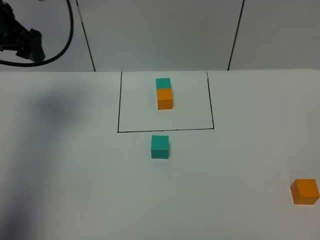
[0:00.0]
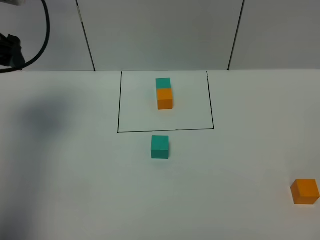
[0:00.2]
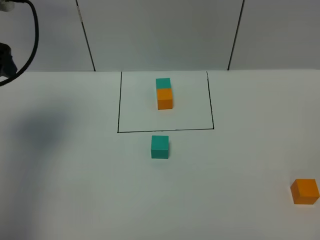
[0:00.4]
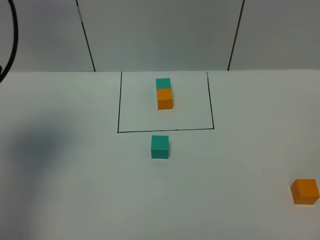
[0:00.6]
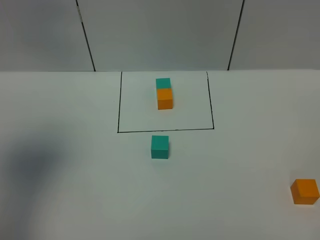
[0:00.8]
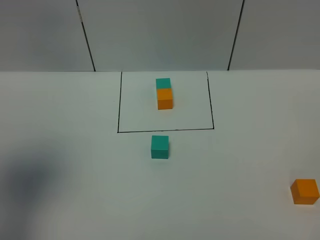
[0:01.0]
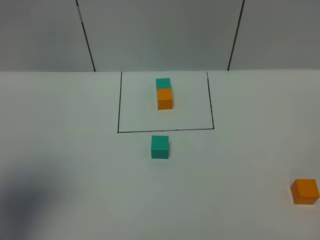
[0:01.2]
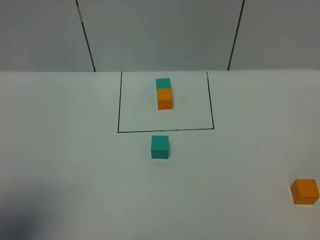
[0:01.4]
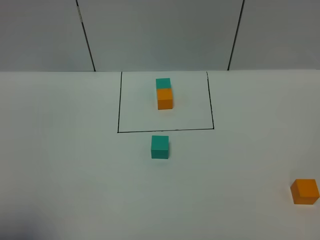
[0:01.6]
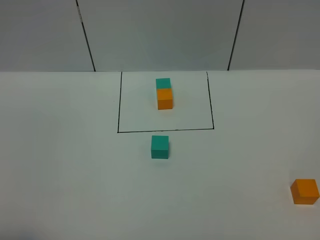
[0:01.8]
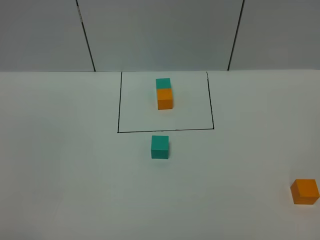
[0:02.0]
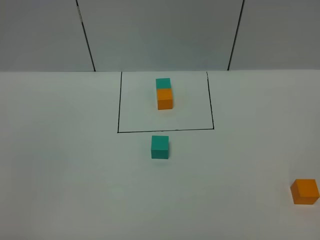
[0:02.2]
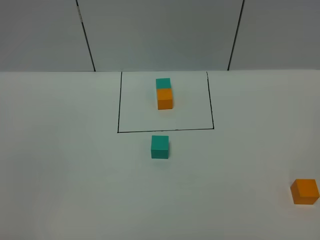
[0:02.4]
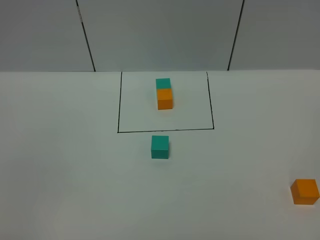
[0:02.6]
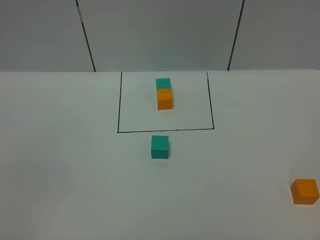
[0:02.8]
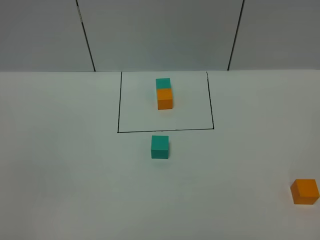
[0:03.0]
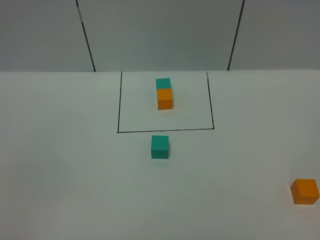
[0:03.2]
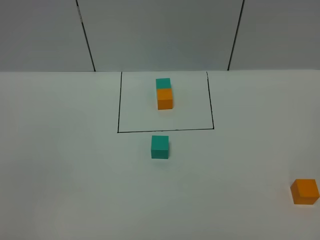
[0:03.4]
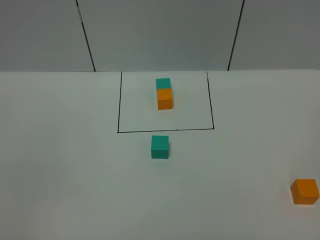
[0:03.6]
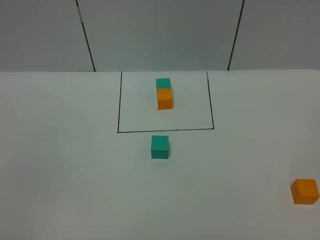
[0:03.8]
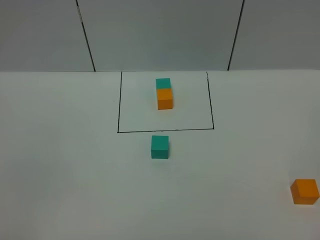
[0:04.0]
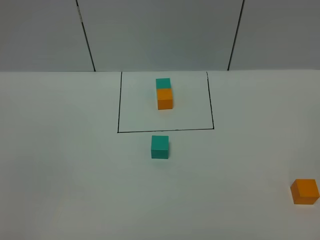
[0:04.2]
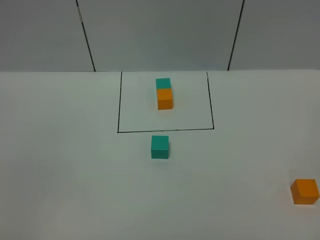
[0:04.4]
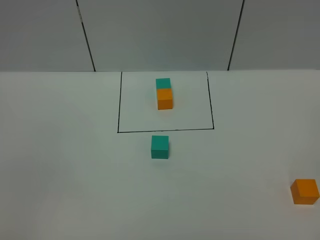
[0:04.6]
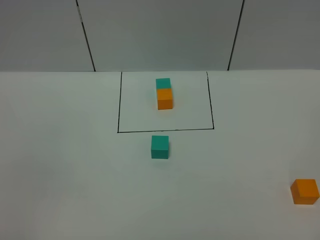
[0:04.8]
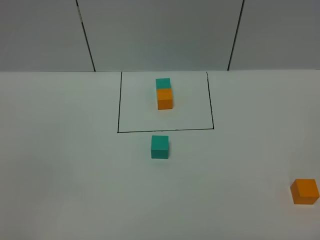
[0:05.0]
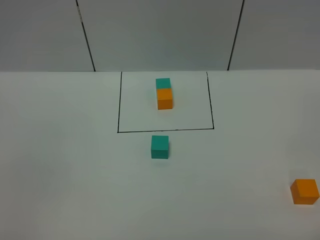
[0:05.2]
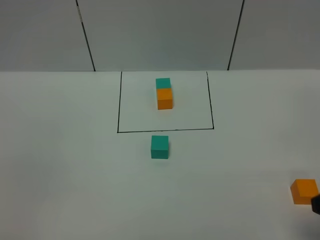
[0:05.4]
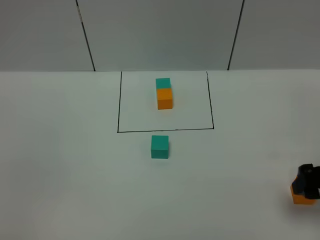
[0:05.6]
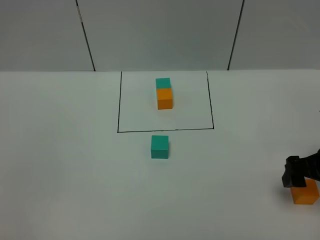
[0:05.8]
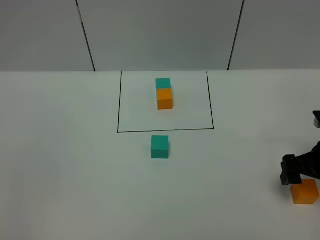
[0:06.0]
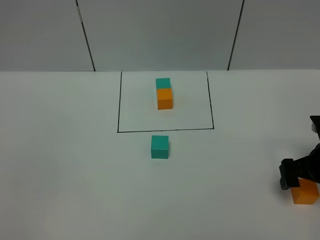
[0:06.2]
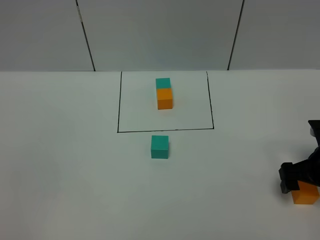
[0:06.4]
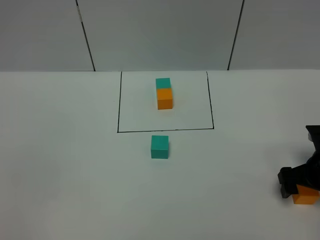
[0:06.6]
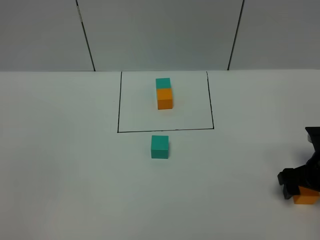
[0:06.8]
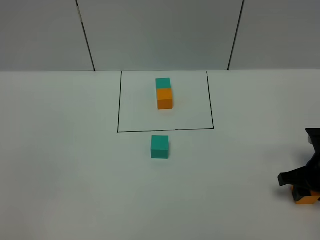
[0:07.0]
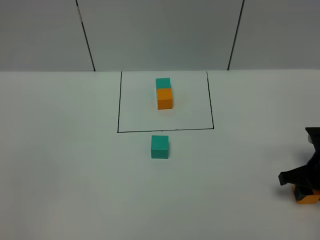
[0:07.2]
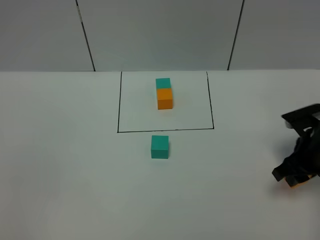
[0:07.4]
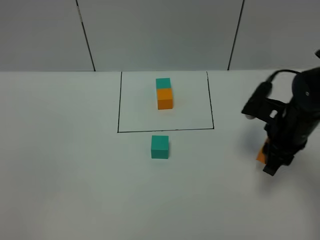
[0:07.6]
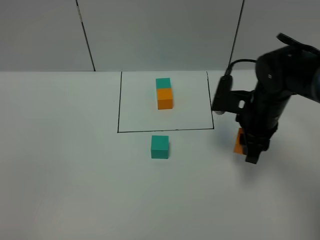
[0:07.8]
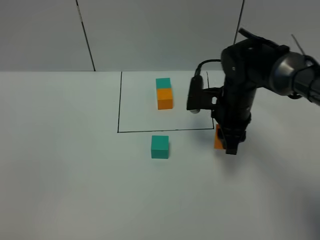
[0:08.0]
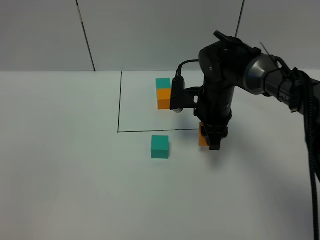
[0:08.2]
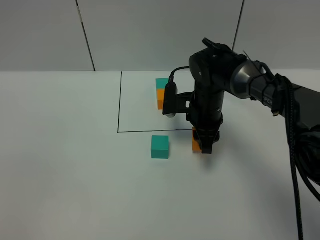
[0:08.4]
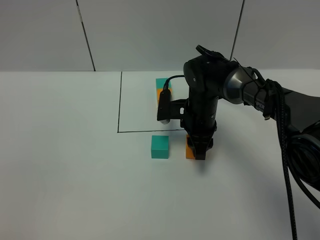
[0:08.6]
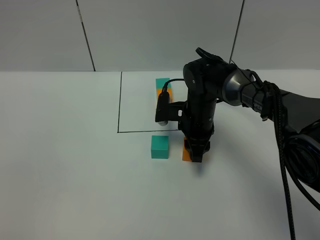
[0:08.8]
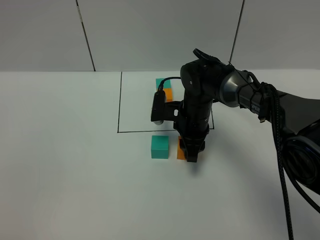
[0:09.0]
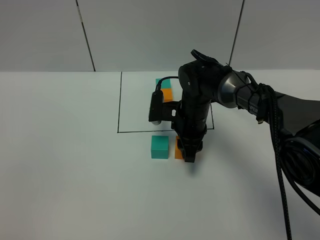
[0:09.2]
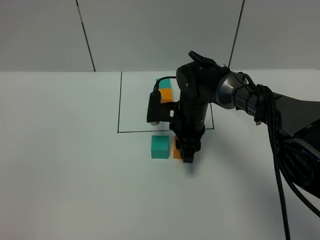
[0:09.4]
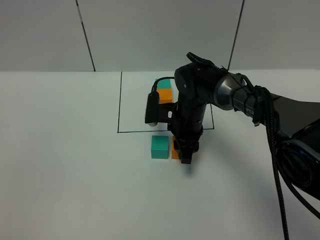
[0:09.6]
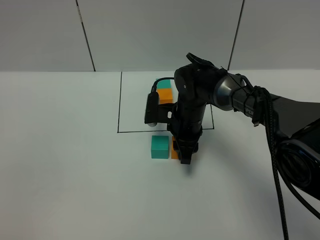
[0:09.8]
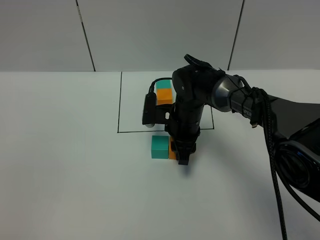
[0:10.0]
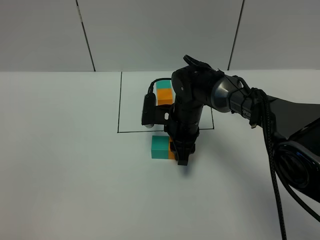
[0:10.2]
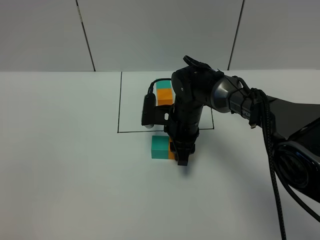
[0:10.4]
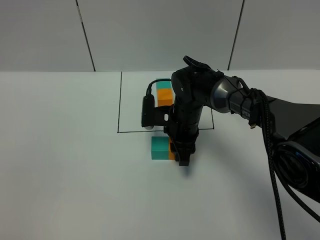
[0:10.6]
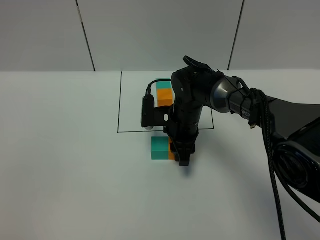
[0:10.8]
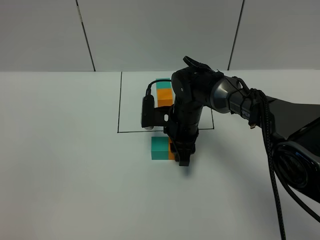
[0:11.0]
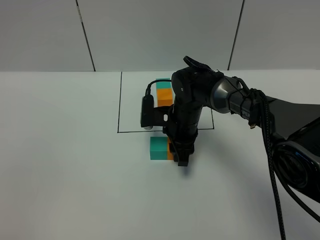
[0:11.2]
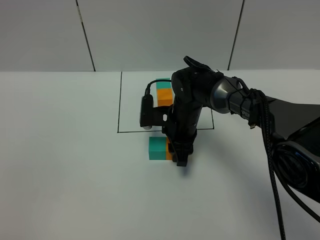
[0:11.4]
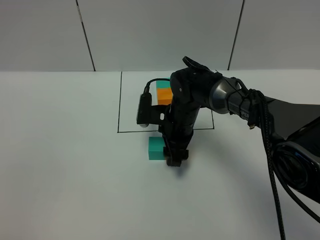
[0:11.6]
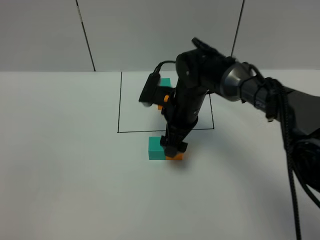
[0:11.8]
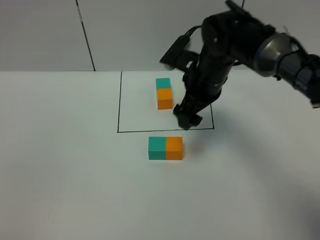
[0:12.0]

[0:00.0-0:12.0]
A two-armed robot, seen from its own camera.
Task of the whole recording: According to the building block template in front, assemble the scattered blocks together.
Step, 0:00.0 to 0:11.8: Put the orange cube on the right of the green cube.
0:00.0 to 0:01.6: The left gripper is displaced backward by some 35 cm.
0:01.6 to 0:03.0: The left gripper goes about 10 cm backward and downward.
0:03.0 to 0:04.4: Both grippers stay about where they are.
0:04.4 to 0:06.0: The right gripper shifts roughly 30 cm forward.
0:06.0 to 0:07.6: The right gripper travels to the left and forward by approximately 10 cm, and closes.
0:07.6 to 0:09.0: The right gripper heads to the left, forward and downward, covering about 20 cm.
0:09.0 to 0:10.4: The grippers move only a little.
0:10.4 to 0:12.0: The right gripper shifts roughly 15 cm upward, and opens.

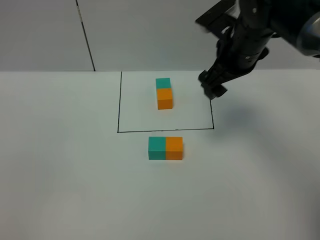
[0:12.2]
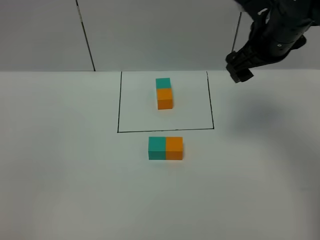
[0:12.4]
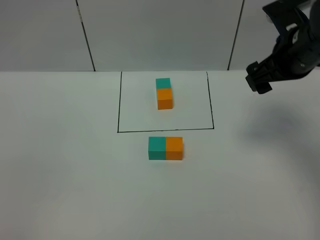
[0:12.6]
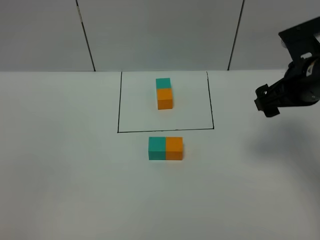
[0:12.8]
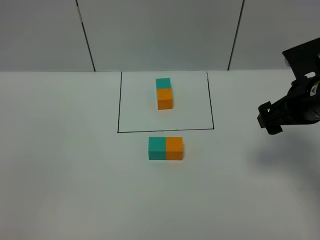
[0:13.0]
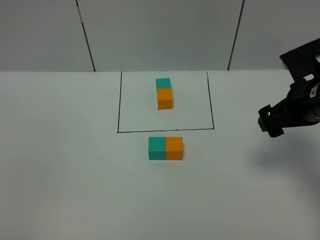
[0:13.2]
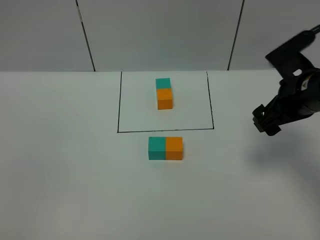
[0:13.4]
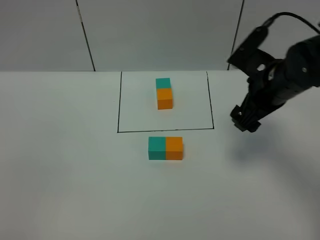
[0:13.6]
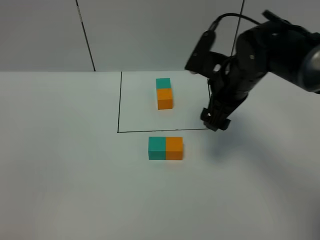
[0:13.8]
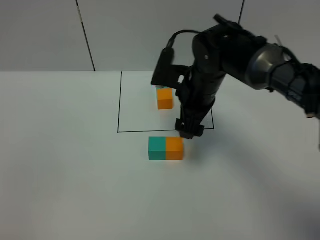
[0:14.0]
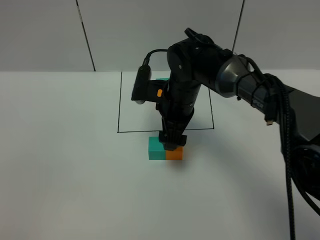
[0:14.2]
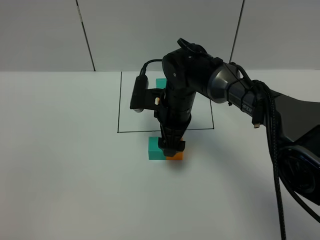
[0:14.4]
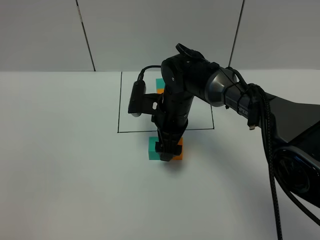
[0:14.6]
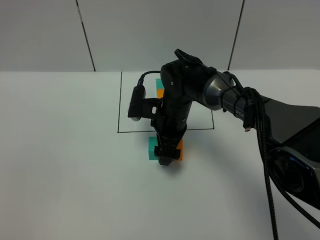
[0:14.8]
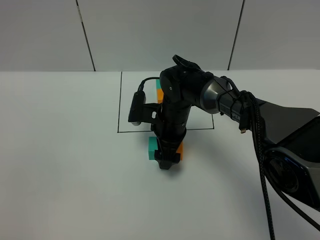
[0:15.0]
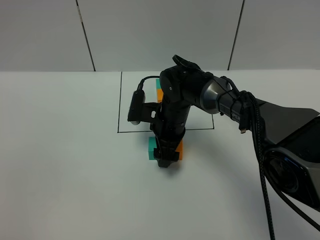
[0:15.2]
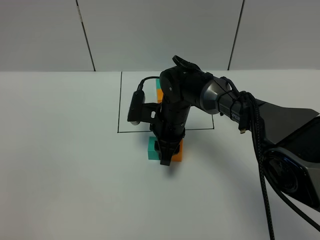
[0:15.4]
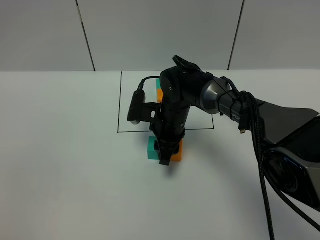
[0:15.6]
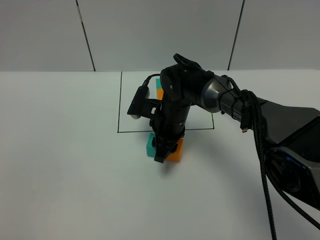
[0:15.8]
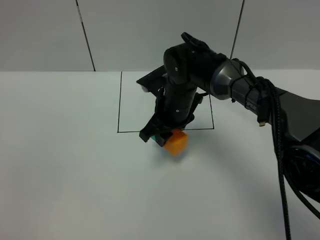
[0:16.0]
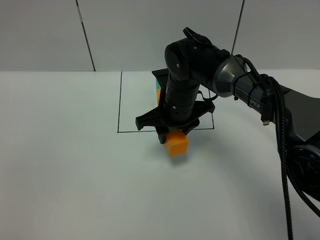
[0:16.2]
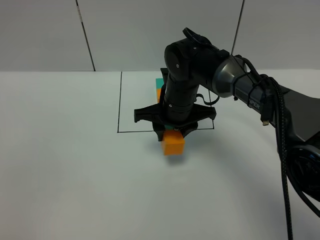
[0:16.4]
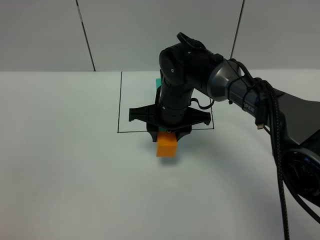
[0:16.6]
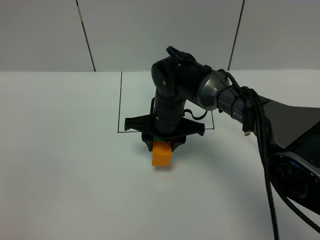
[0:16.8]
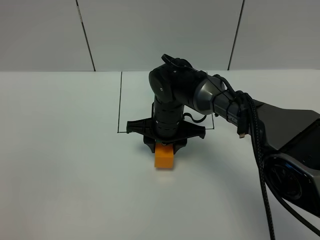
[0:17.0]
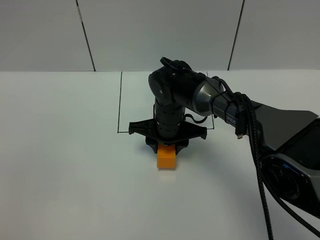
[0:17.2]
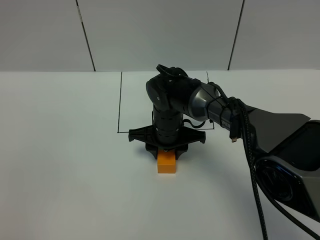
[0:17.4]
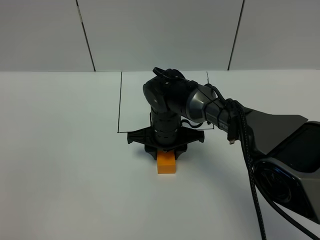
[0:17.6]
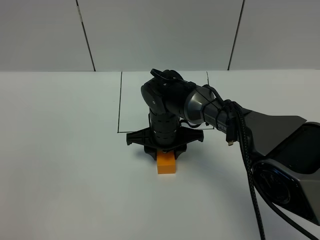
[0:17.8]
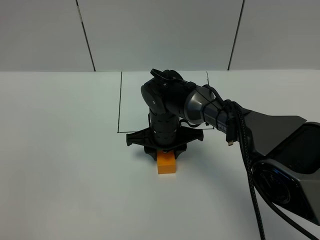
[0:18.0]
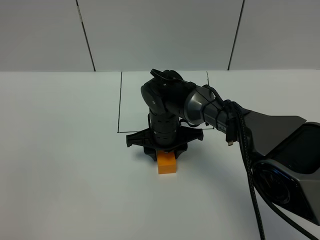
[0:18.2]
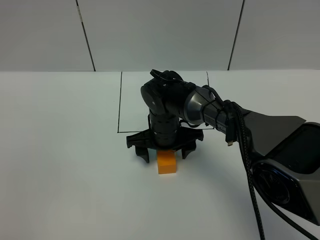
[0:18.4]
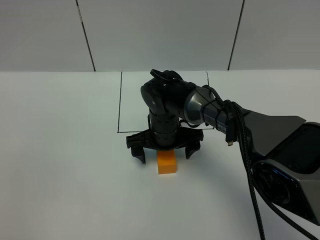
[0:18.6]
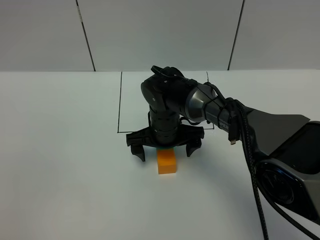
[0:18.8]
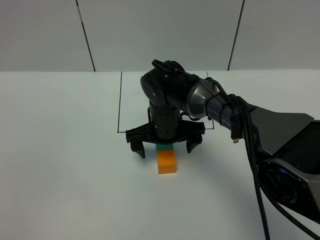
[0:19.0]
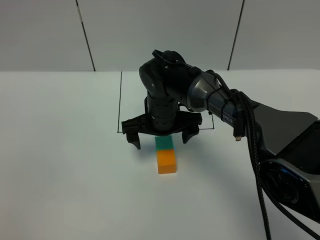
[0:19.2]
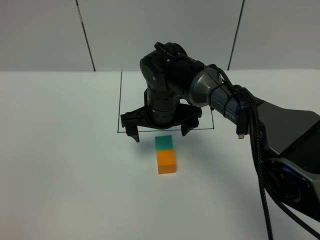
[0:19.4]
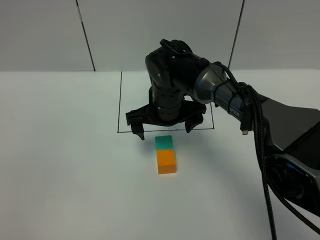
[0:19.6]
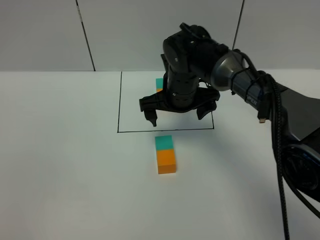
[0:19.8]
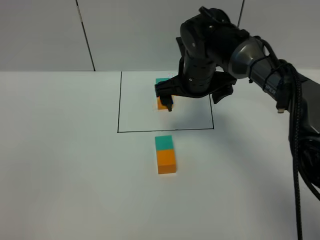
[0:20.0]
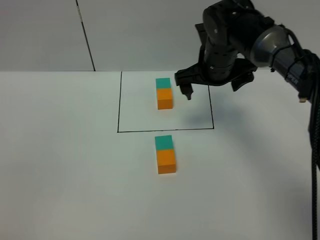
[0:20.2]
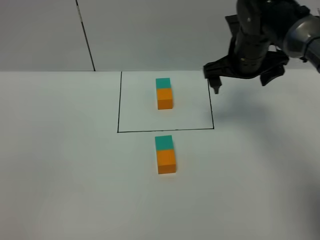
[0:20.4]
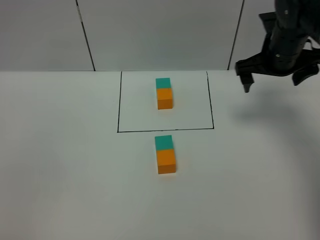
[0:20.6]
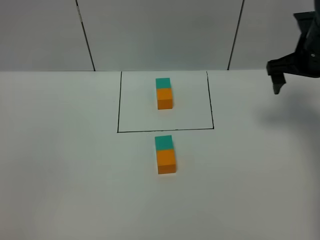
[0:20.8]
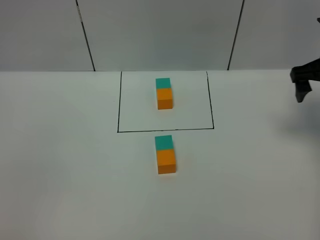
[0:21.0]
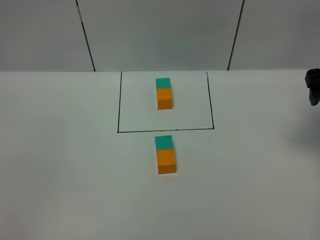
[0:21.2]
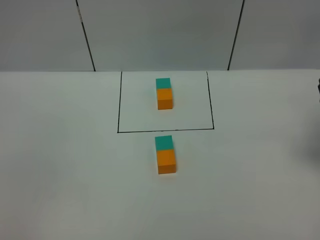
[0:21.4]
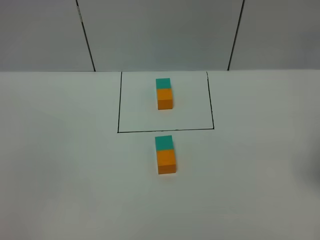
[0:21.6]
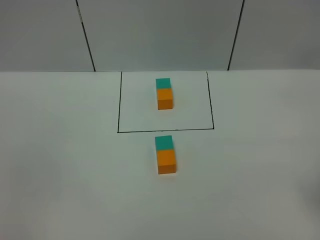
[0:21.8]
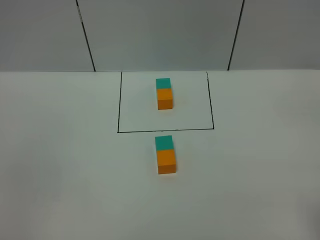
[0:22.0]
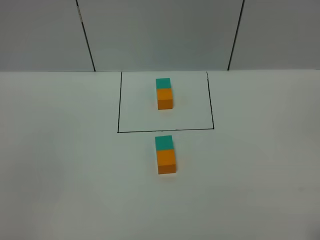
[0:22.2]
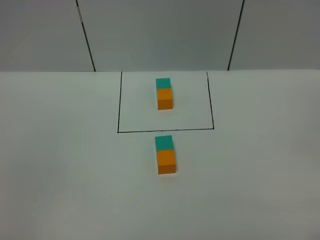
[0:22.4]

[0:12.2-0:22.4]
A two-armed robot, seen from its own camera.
Task of the whole recording: According to the building block template in front, assemble the scattered blocks together.
Step, 0:12.2 to 0:19.2: Adjust the pose of the building blocks.
0:12.2 to 0:13.6: The right gripper moves backward, some 5 cm.
0:13.6 to 0:15.2: The right gripper heads to the left and downward, covering roughly 20 cm.
0:15.2 to 0:16.6: The right gripper travels upward by some 5 cm, and closes.
0:16.6 to 0:18.0: The right gripper goes some 5 cm downward.
0:18.0 to 0:19.4: The right gripper is displaced upward by roughly 5 cm, and opens its fingers.
0:19.4 to 0:21.0: The right gripper is displaced to the right by some 30 cm.
0:21.0 to 0:22.4: The right gripper goes about 35 cm backward.
